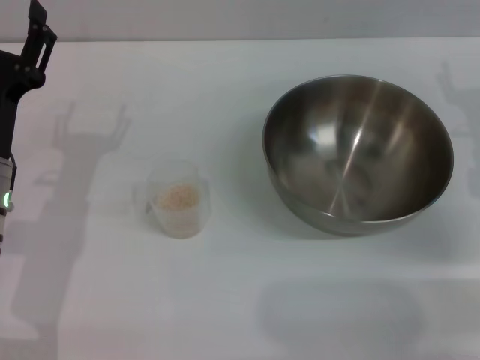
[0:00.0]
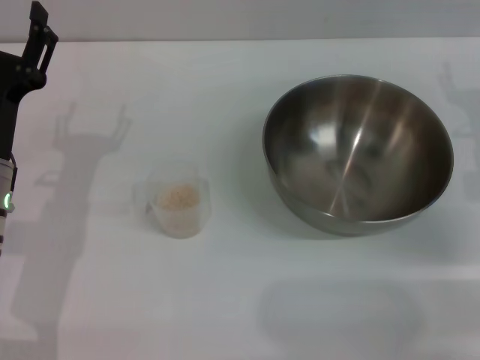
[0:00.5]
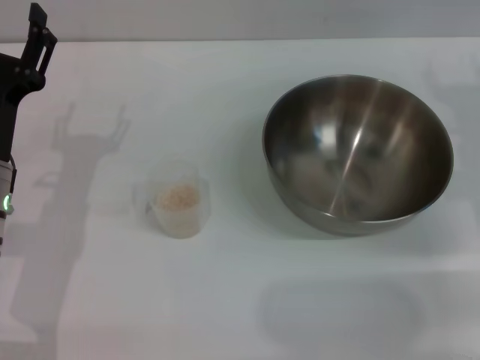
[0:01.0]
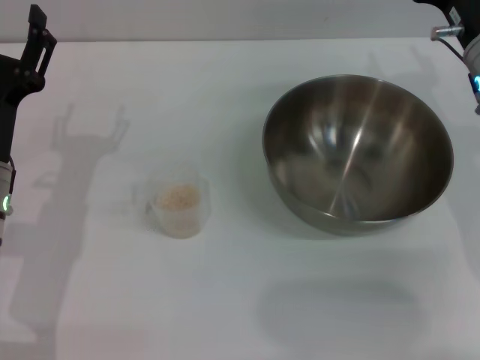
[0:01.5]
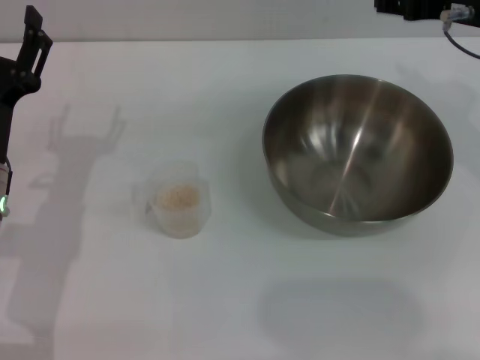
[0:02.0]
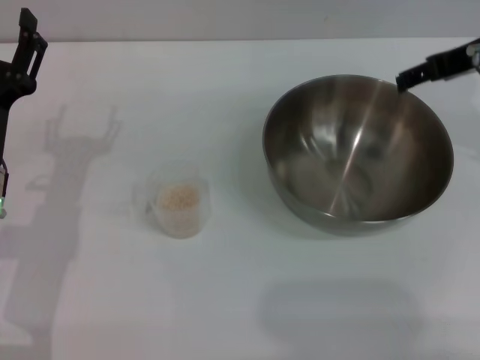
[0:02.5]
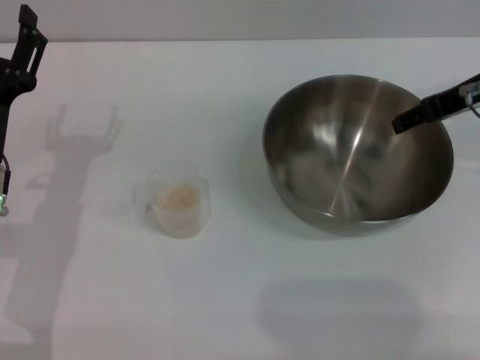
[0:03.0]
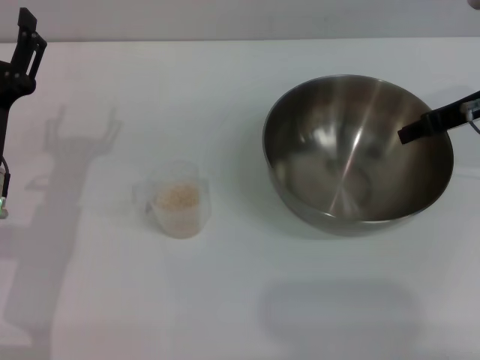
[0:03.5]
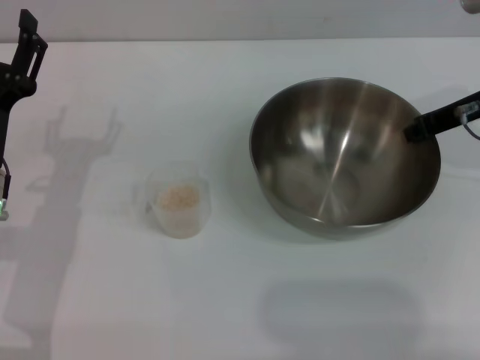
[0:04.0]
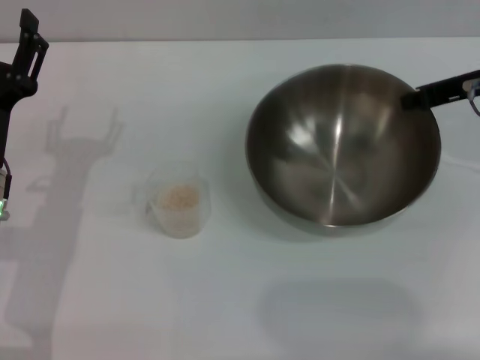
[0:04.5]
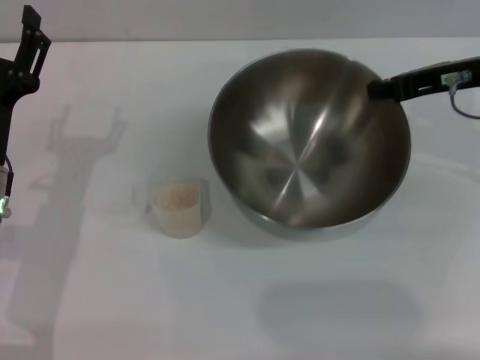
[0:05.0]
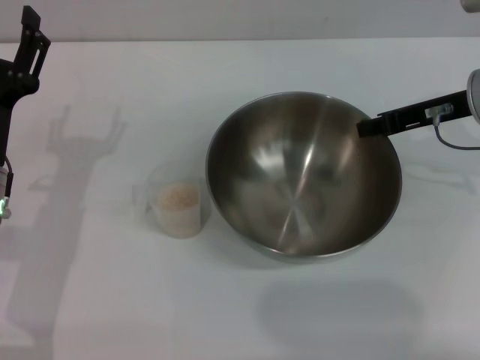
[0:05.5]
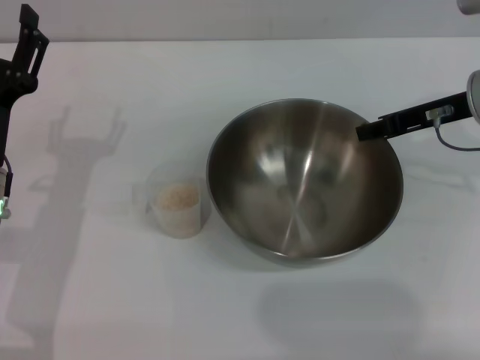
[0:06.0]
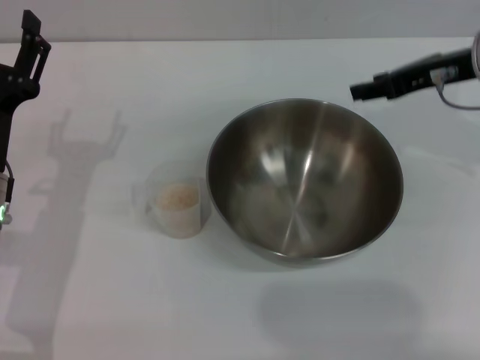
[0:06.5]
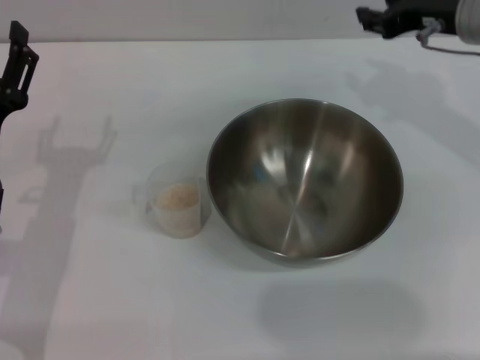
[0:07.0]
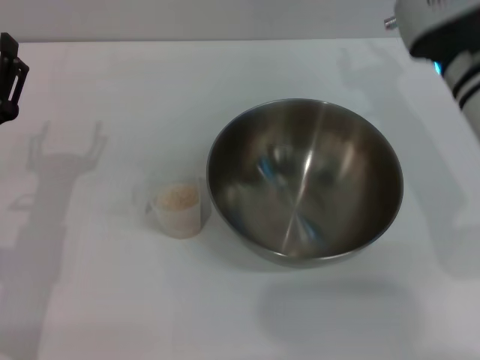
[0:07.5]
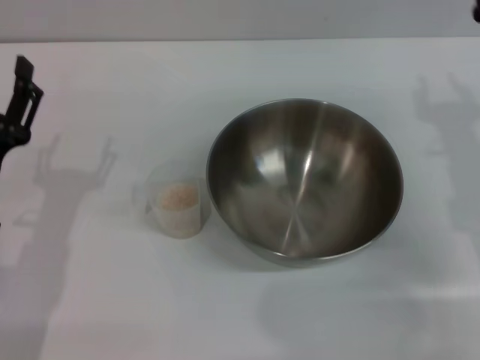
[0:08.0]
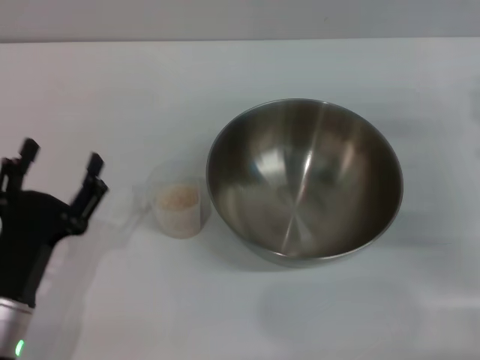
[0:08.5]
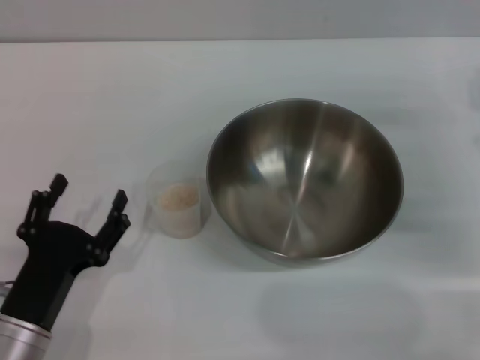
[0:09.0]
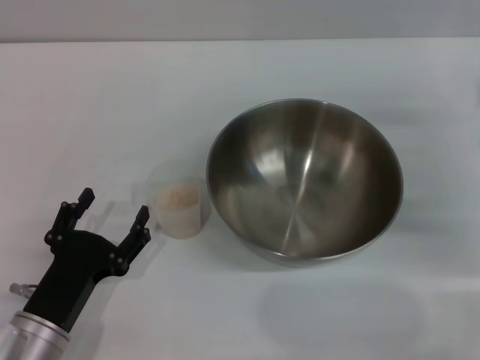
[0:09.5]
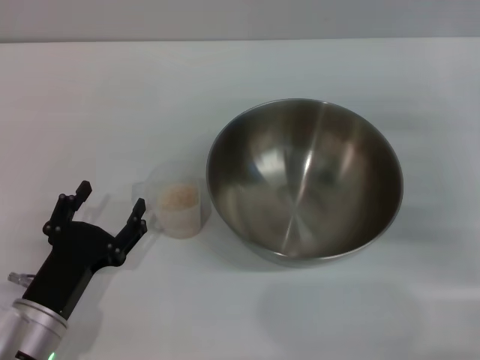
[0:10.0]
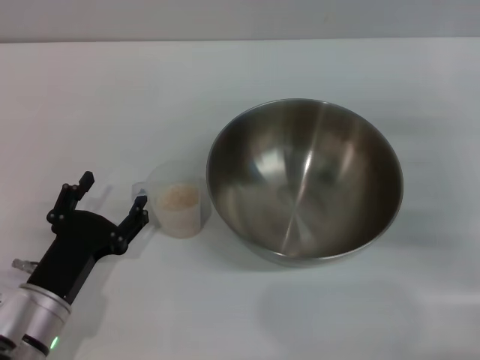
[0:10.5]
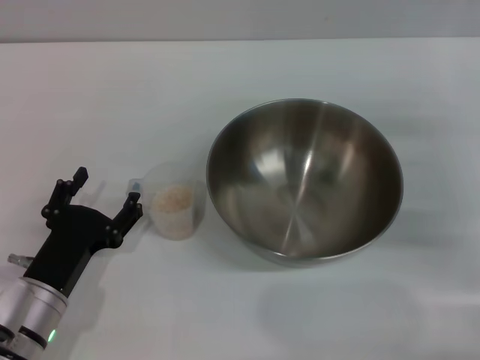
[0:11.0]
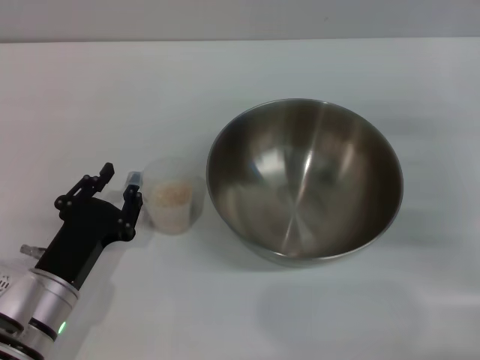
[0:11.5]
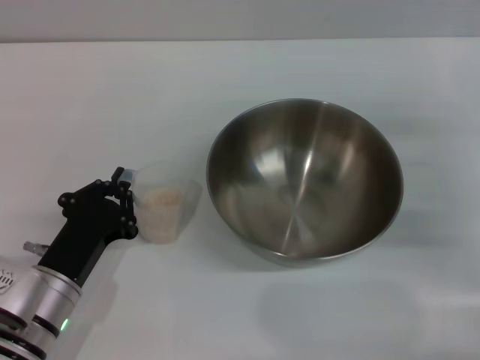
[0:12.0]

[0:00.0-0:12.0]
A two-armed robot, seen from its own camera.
Task of the whole recording: Place the bowl in the middle of the table with one hand and pour the rice from the grain cup into it with the other hand.
Step, 0:00.0 to 0:04.5: Pick up the bowl with the right gripper.
Step, 0:05.0 to 0:06.5: Place the bowl in the center of view with the right gripper.
0:00.0 to 0:02.0: The right gripper goes some 15 cm upward and to the left.
0:02.0 to 0:04.0: The right gripper shifts by approximately 5 cm, and closes.
0:04.0 to 0:06.0: There are only small adjustments of the grippers.
0:06.0 to 0:08.0: The right gripper heads backward and downward, covering roughly 10 cm, and opens up.
0:08.0 to 0:10.0: The left gripper shifts roughly 10 cm downward and backward.
0:10.0 to 0:12.0: The left gripper closes.

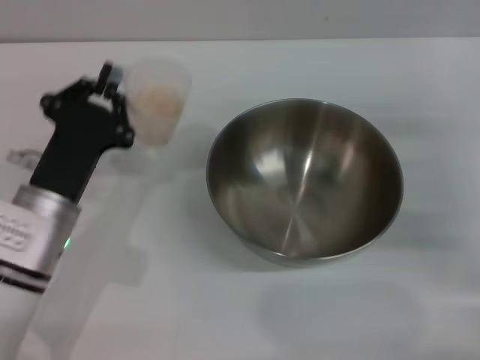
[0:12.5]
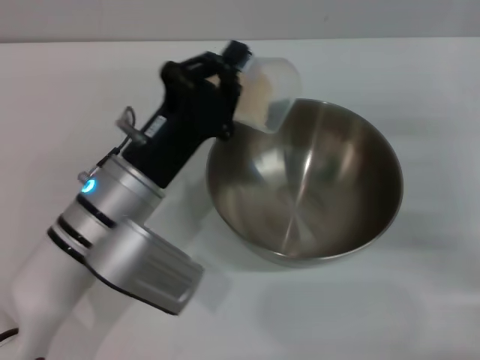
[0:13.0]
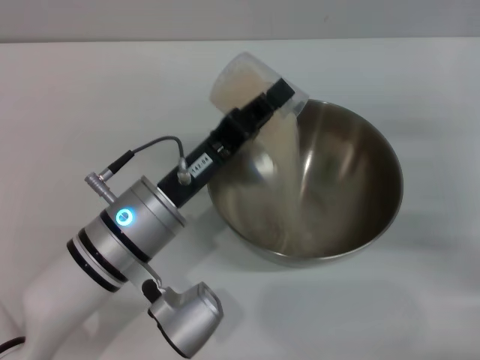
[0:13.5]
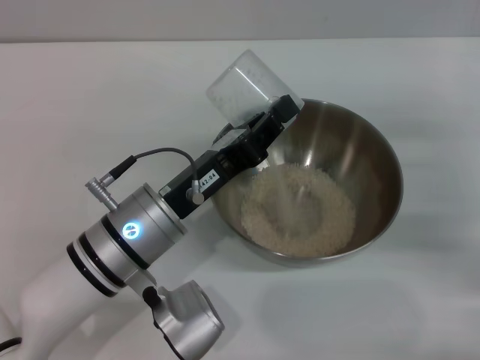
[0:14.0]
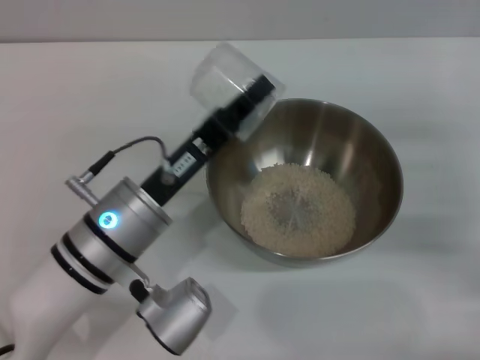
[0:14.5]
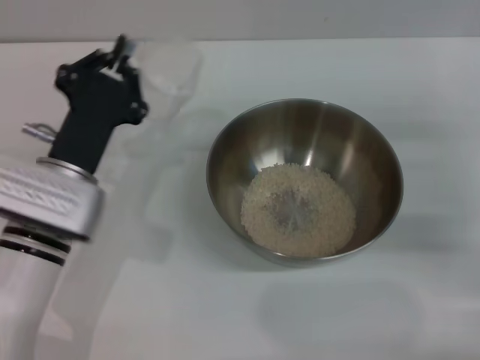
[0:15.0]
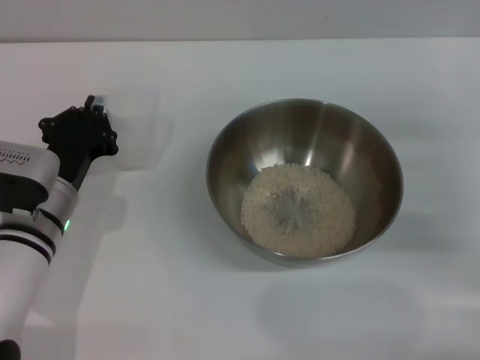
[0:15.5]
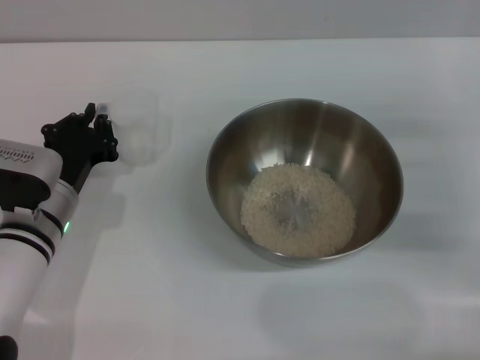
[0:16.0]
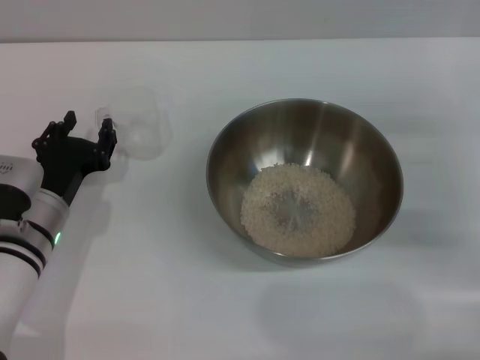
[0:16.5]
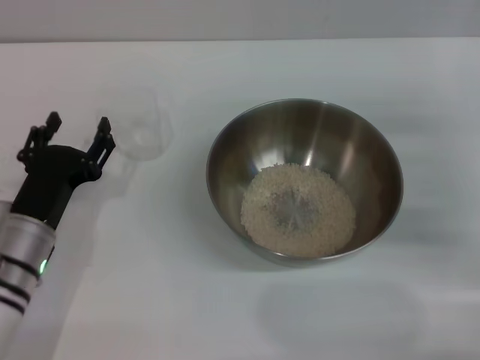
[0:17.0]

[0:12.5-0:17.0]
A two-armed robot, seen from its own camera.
Task of the whole recording: Place the bowl in the middle of the table with one hand and pour the rice from the grain cup into it with the other hand.
Step, 0:12.5 to 0:14.5: Pour the rice from the cup into the bowl with the left gripper.
Step, 0:15.0 to 0:16.5: Place the cup on the table with the left gripper.
0:12.5 to 0:14.5: The left gripper heads to the right, covering roughly 5 cm.
0:14.5 to 0:17.0: The left gripper heads to the left and downward, covering approximately 10 cm, and opens.
